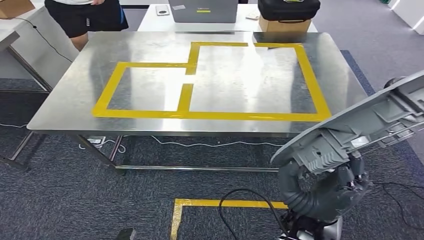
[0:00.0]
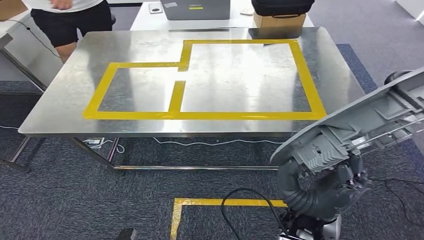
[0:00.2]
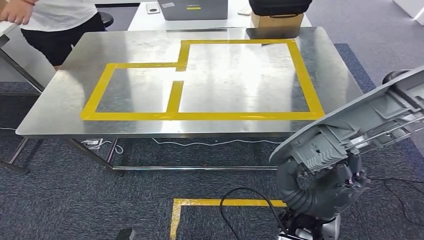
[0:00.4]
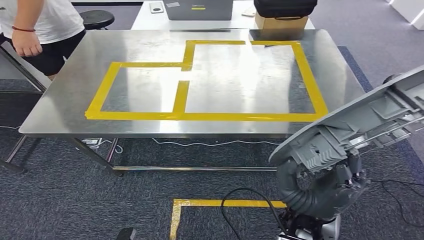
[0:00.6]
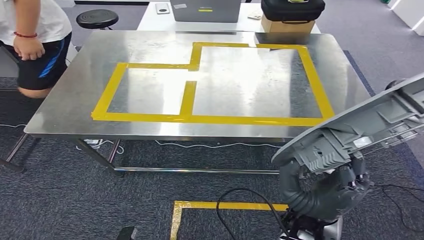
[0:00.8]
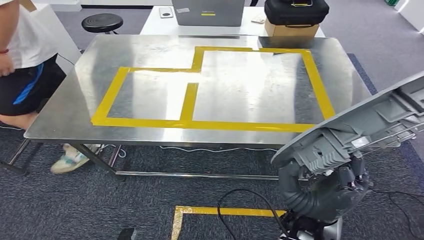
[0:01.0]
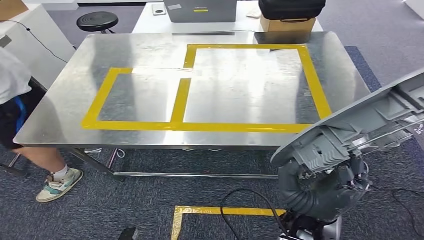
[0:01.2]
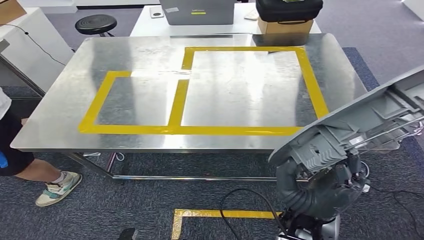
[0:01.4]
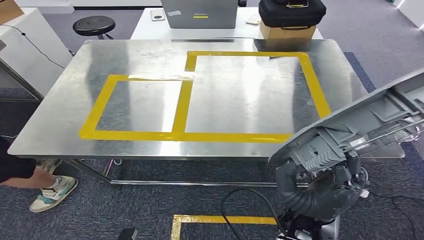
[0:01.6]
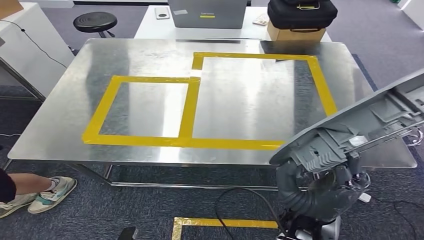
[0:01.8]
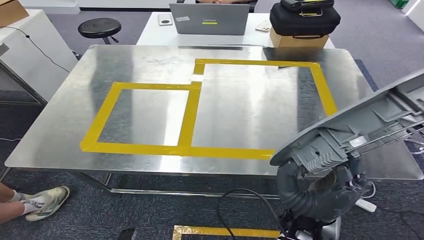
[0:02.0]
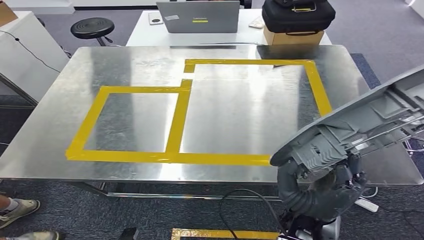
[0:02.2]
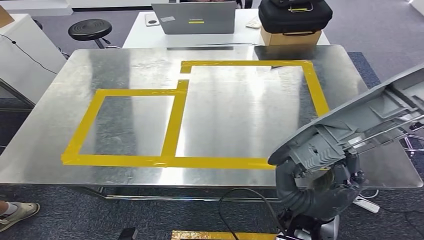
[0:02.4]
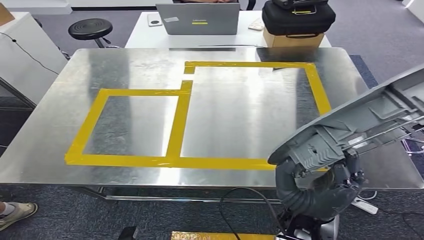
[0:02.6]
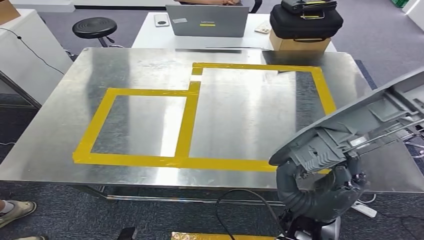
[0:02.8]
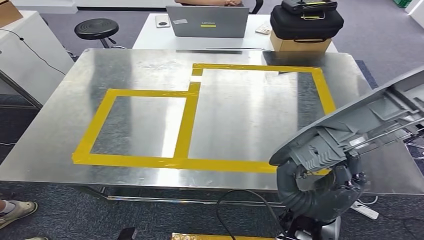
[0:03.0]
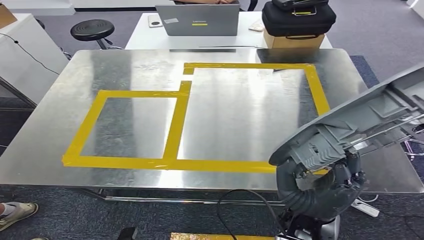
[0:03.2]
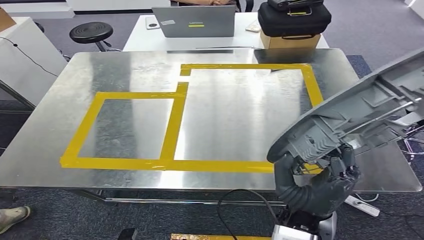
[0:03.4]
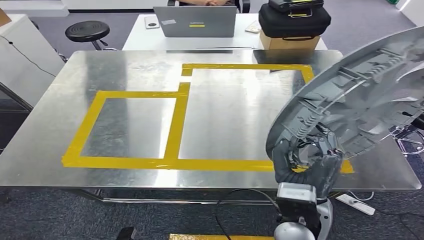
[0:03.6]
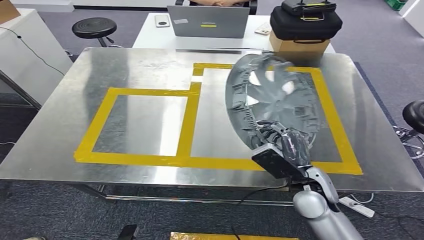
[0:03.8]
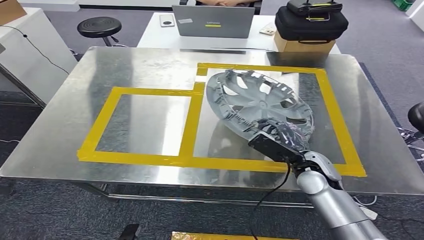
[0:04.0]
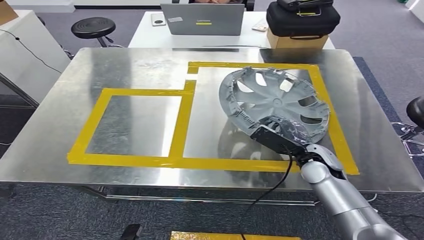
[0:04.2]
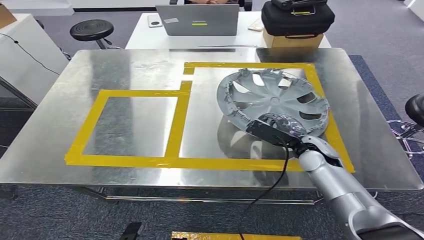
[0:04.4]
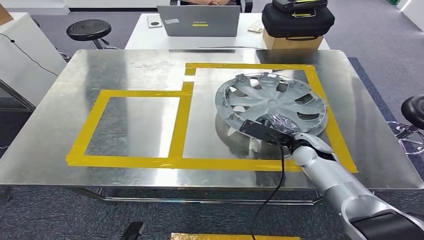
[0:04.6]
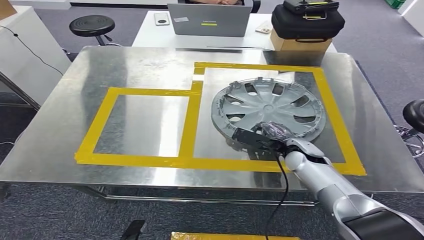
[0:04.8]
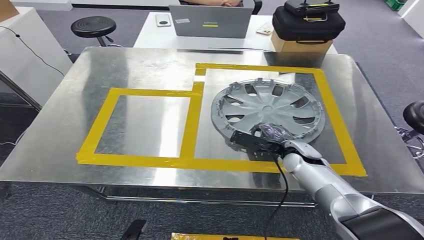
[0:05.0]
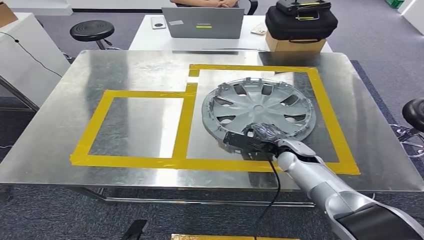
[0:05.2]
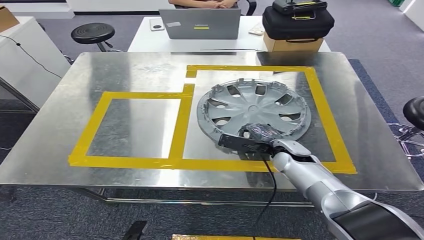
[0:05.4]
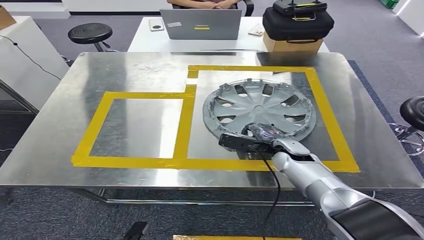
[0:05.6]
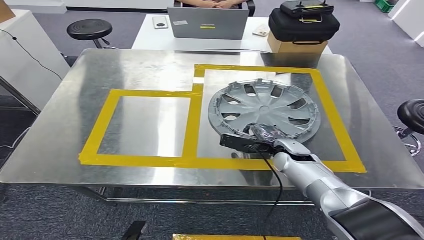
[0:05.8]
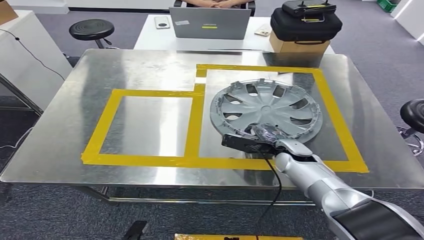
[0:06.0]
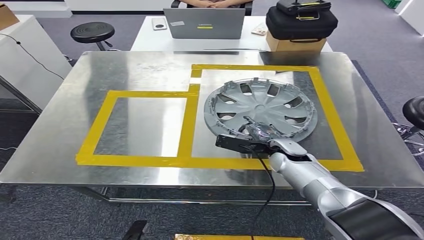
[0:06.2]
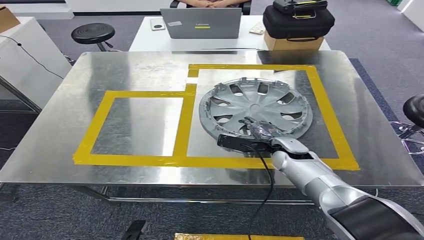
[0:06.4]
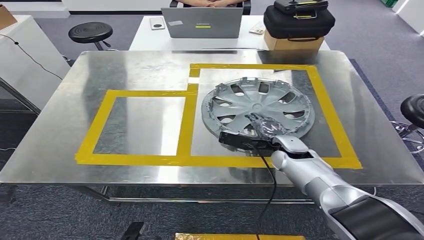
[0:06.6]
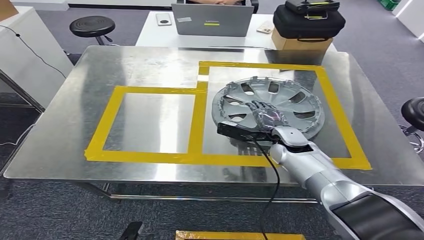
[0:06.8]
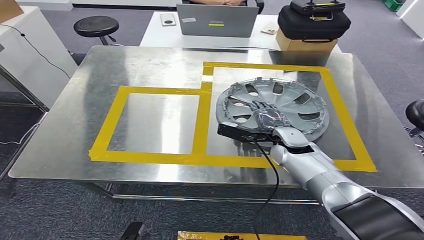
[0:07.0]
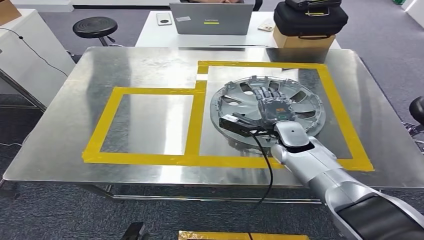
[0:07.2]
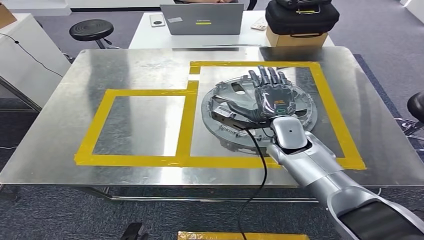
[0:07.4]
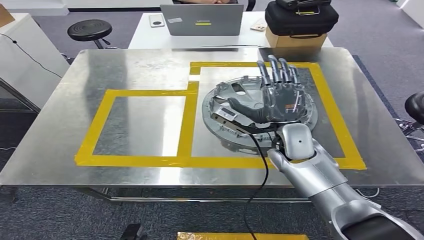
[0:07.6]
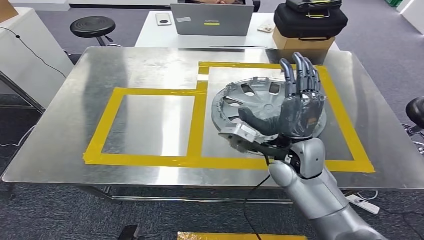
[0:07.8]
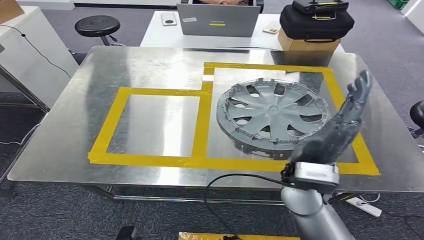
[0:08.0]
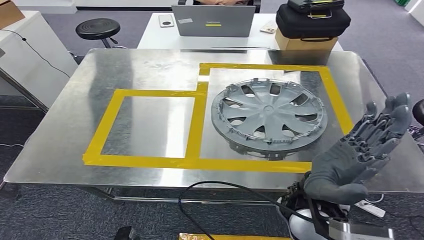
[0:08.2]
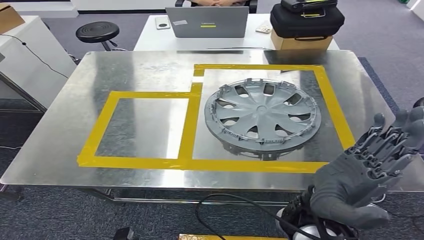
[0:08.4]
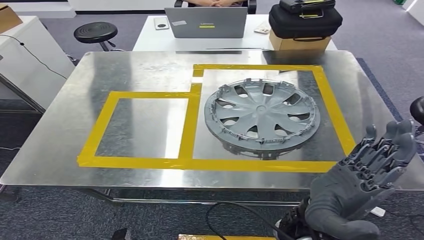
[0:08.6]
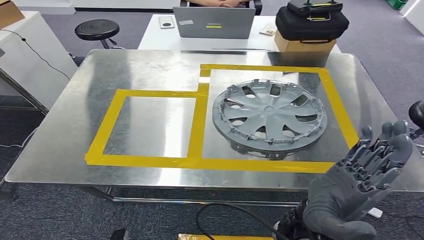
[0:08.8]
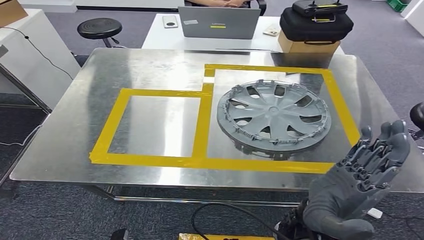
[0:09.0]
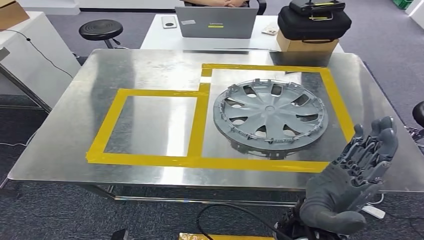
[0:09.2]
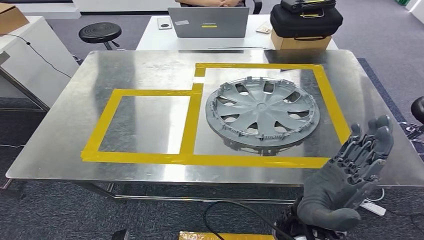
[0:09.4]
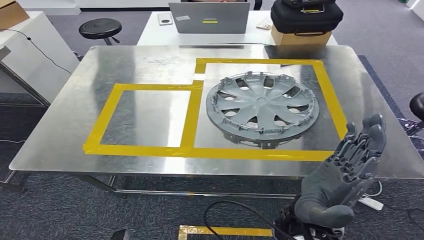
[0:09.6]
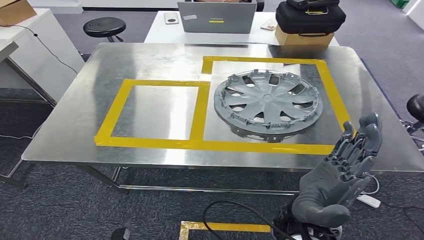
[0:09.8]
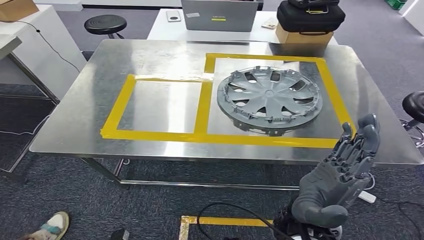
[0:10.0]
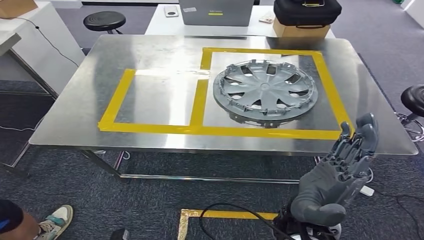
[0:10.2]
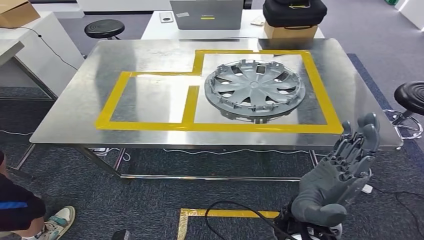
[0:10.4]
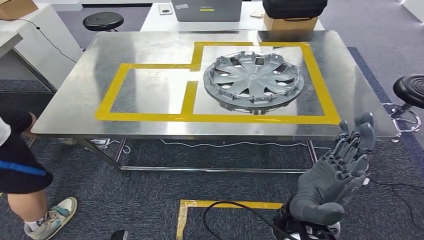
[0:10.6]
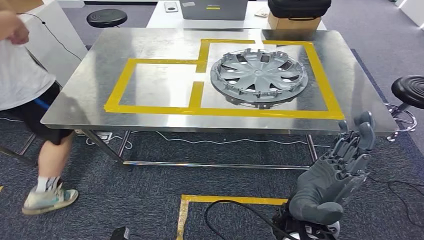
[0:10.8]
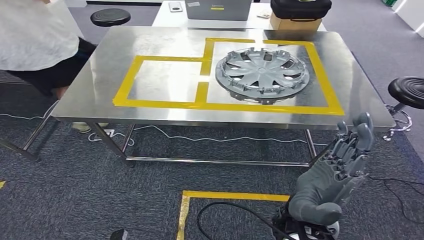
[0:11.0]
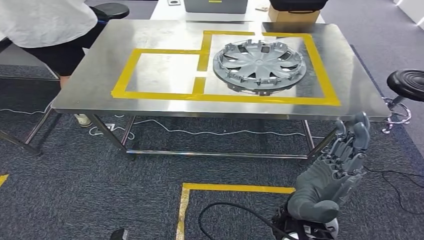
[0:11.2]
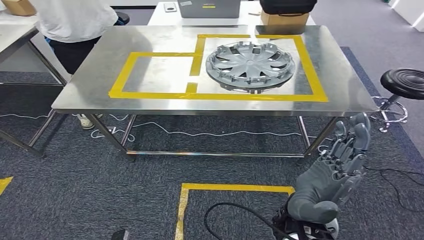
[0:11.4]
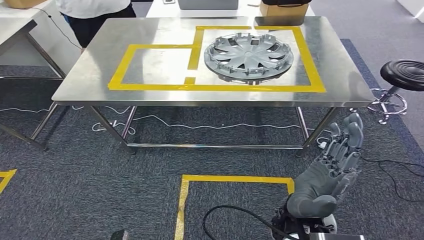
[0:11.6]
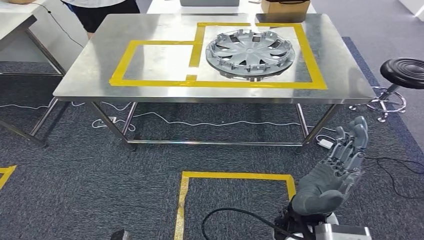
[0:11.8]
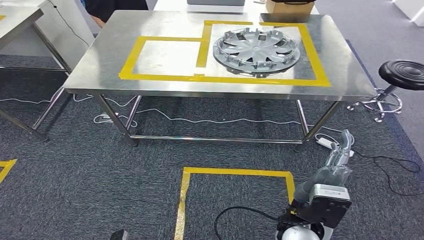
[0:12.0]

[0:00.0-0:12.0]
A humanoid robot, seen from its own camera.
Step, 0:00.0 to 0:03.2: Bring the small component to the front of the workbench.
Step, 0:03.8 to 0:10.2: Insert the small component into the corresponding slot on the workbench.

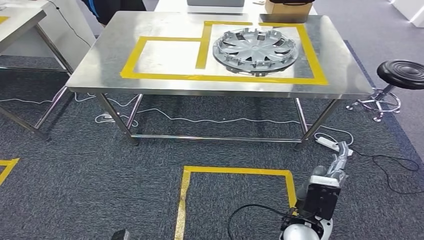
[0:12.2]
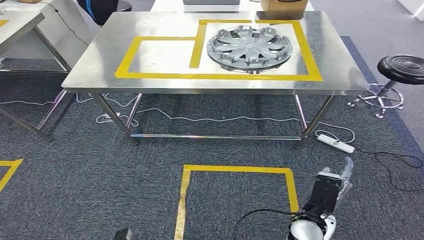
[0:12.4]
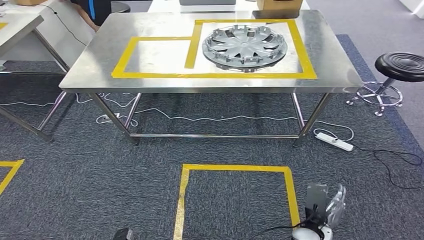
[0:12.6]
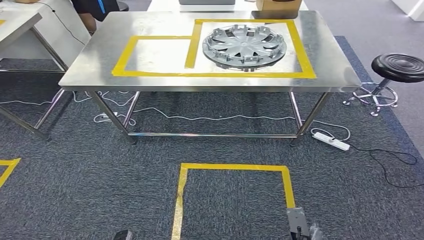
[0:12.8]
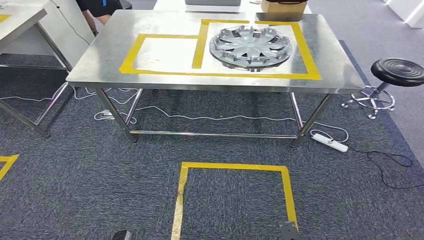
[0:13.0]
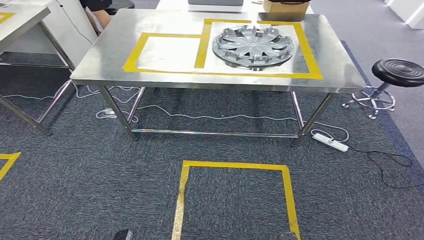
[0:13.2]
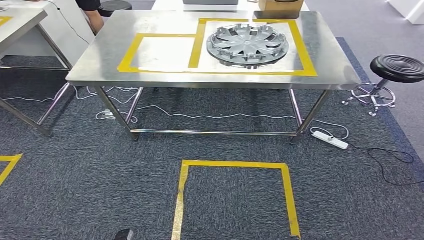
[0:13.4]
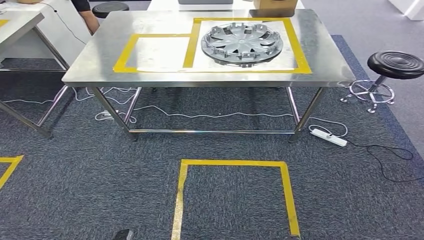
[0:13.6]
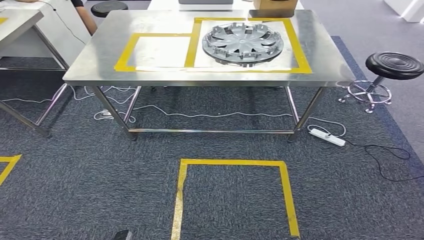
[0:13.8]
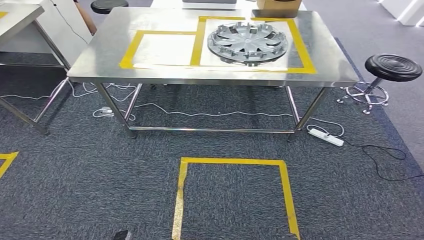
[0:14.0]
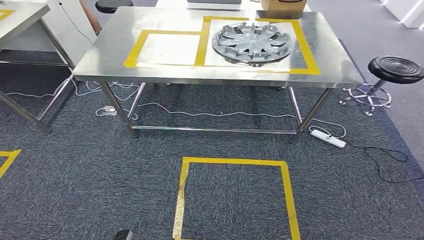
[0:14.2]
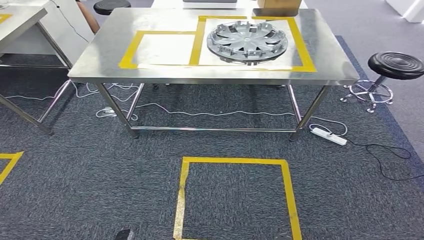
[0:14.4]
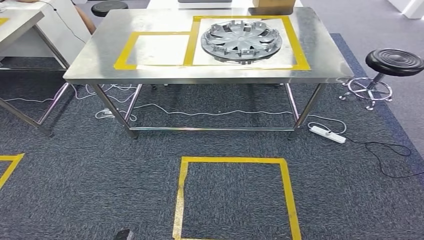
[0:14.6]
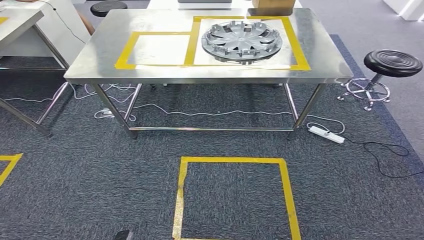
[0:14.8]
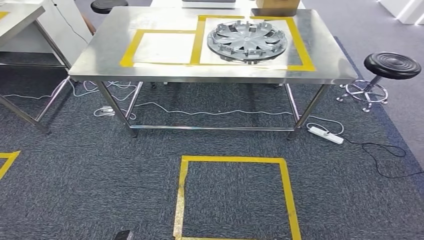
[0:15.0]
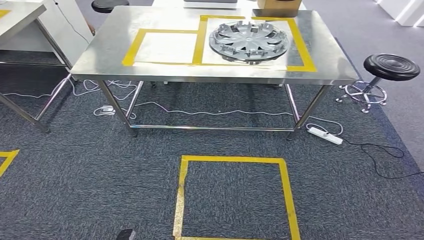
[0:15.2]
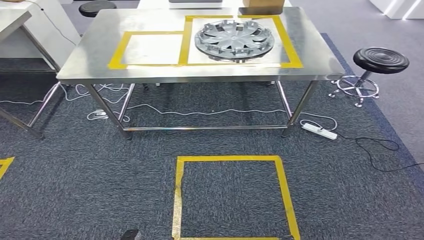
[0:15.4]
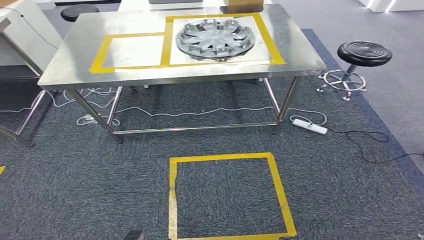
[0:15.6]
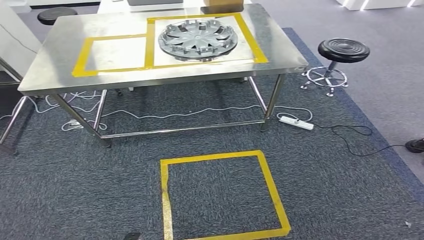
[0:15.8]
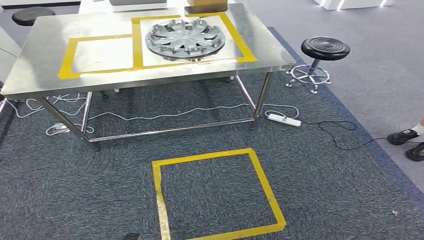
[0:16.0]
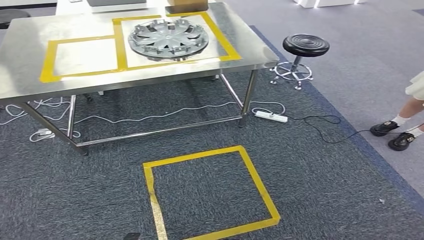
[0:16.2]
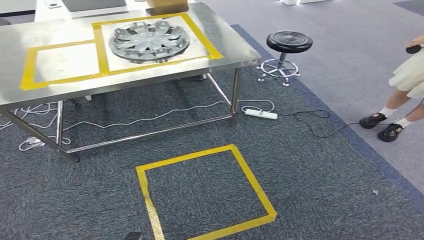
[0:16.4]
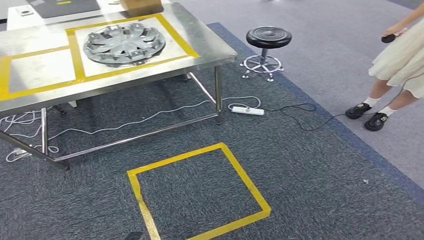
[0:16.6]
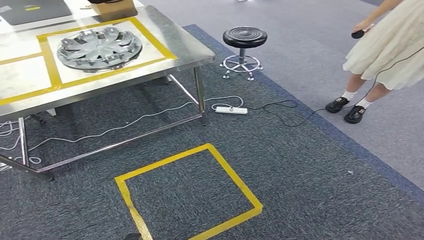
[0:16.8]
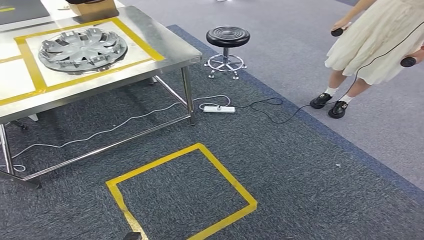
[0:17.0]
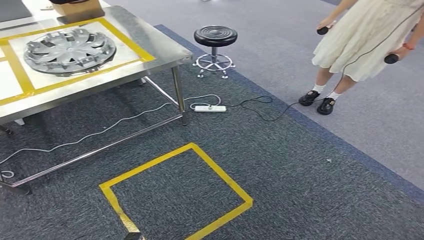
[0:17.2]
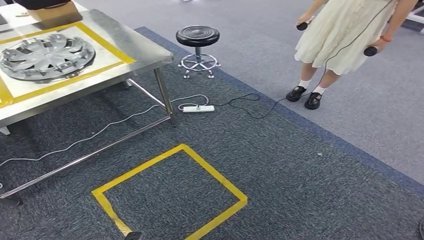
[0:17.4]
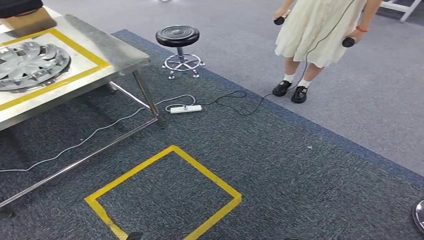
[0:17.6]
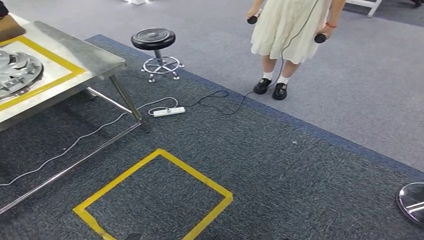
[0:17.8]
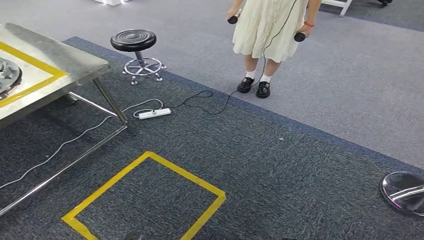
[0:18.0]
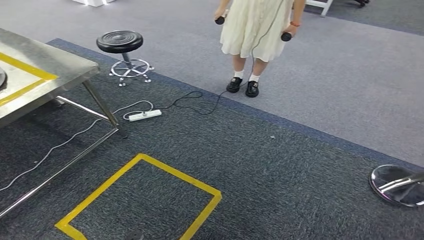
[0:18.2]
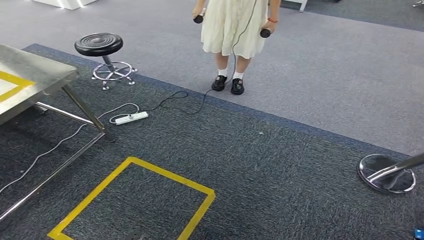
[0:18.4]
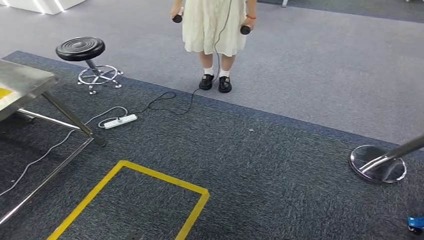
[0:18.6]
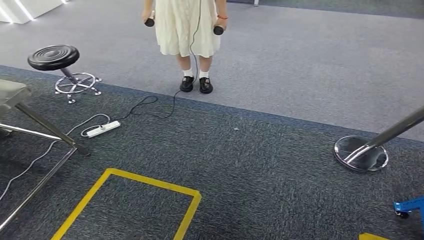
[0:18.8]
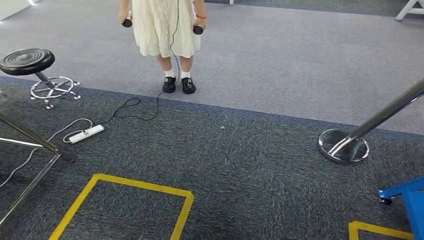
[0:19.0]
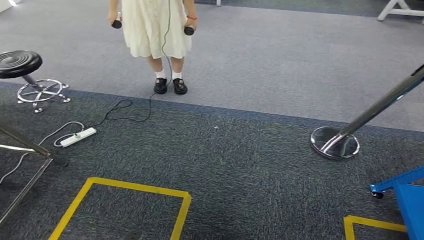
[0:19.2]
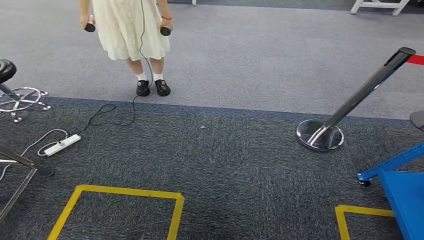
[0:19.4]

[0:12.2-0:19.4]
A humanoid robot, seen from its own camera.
0:13.6 to 0:15.0: The hands stay close to where they were, moving slightly.
